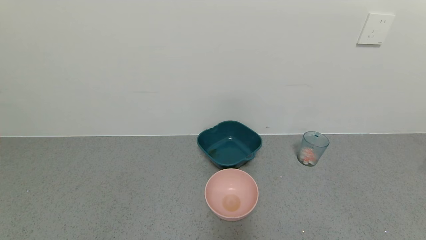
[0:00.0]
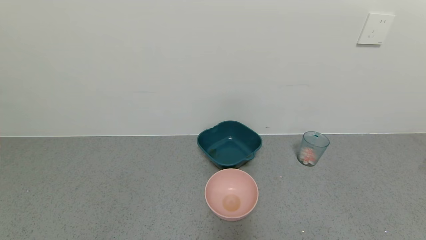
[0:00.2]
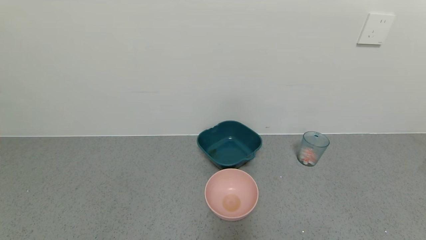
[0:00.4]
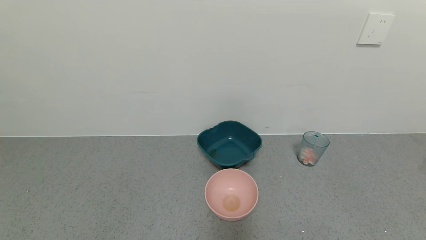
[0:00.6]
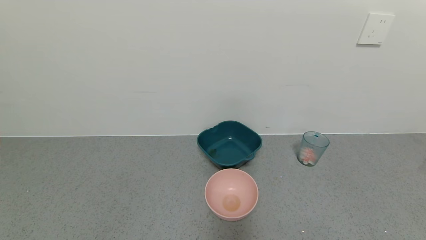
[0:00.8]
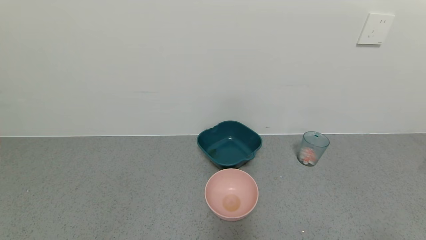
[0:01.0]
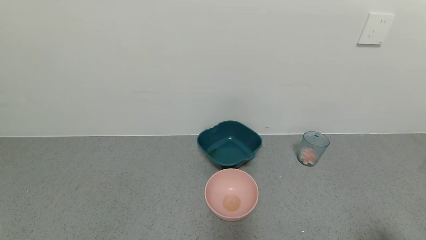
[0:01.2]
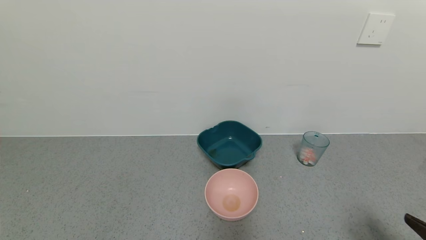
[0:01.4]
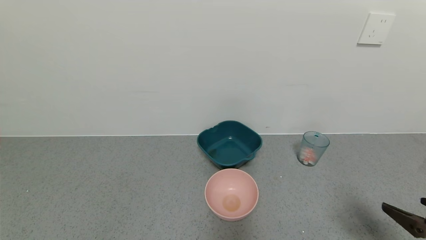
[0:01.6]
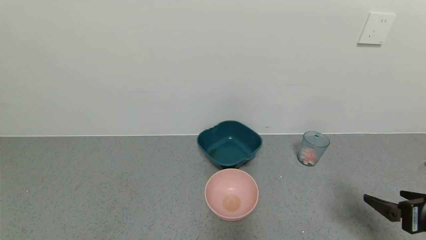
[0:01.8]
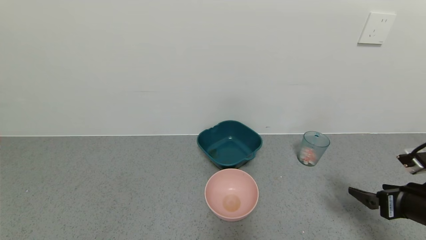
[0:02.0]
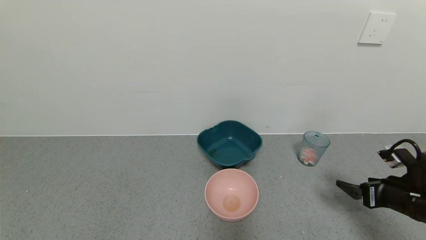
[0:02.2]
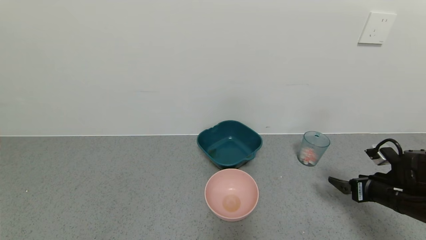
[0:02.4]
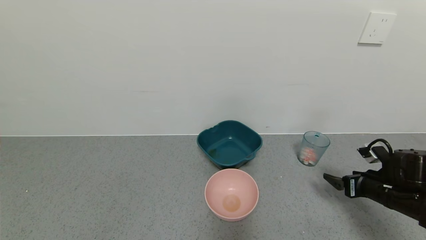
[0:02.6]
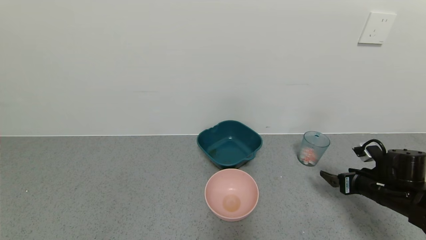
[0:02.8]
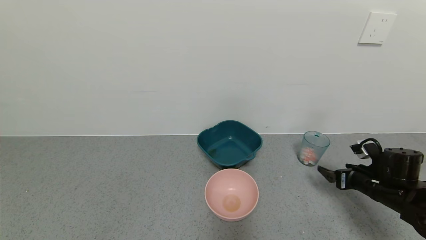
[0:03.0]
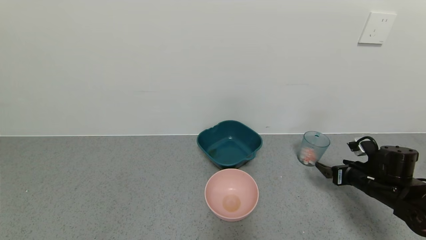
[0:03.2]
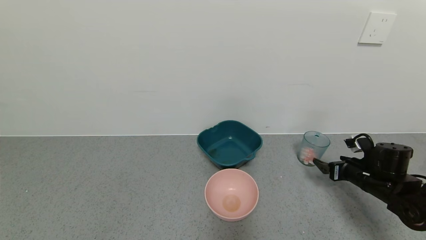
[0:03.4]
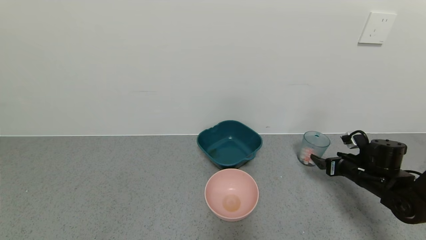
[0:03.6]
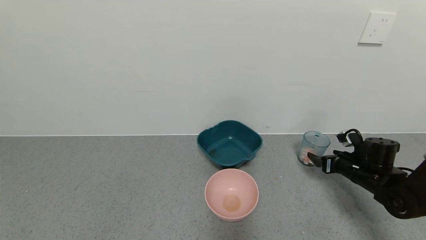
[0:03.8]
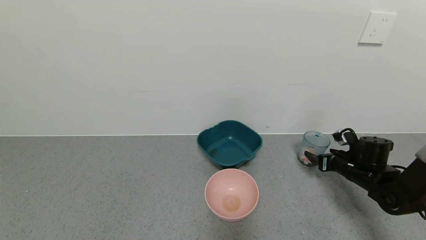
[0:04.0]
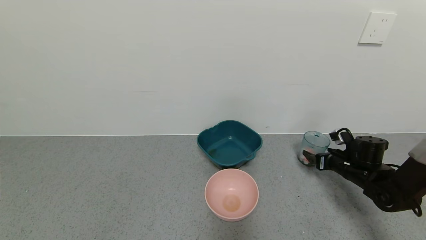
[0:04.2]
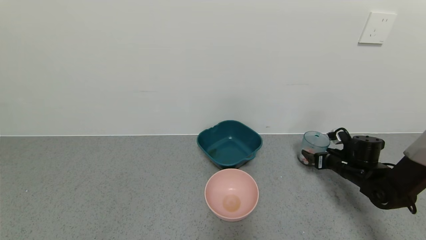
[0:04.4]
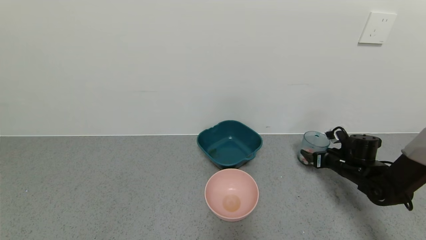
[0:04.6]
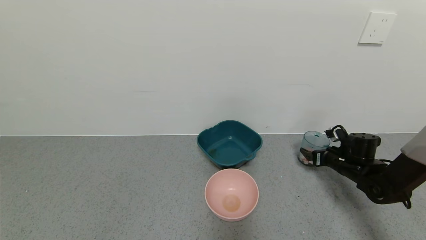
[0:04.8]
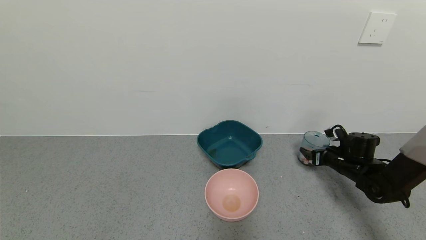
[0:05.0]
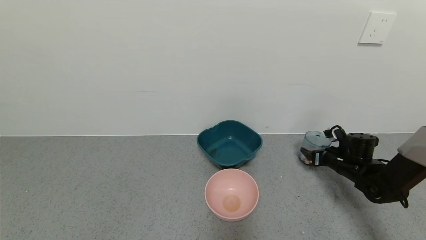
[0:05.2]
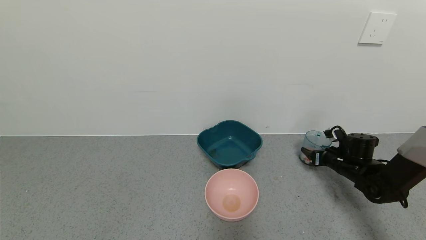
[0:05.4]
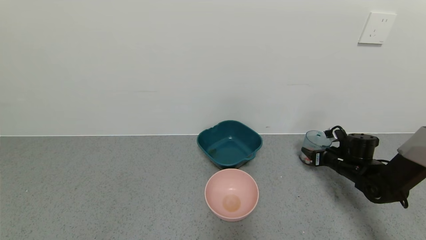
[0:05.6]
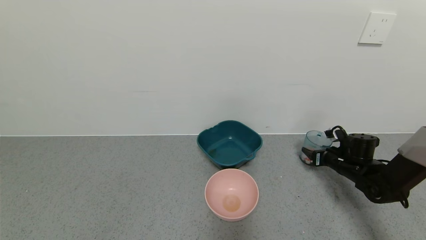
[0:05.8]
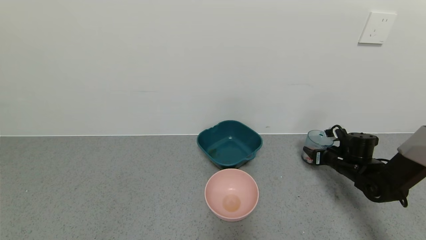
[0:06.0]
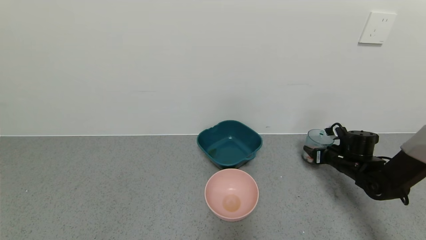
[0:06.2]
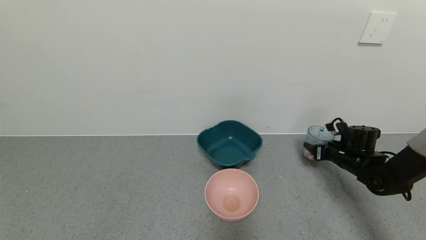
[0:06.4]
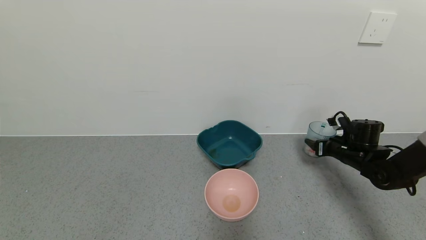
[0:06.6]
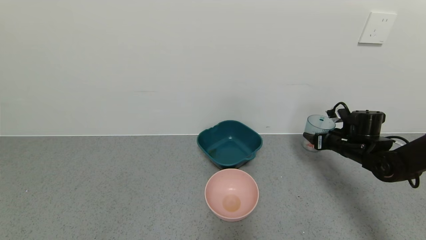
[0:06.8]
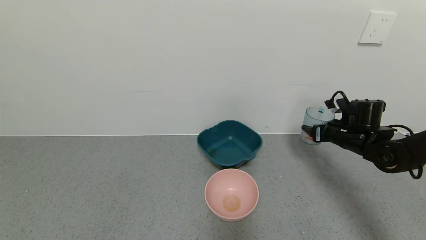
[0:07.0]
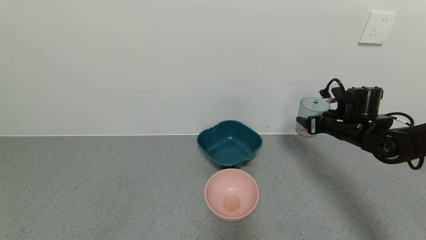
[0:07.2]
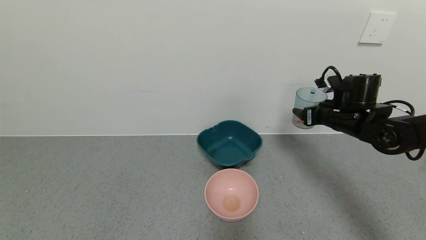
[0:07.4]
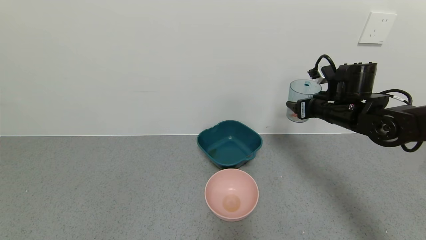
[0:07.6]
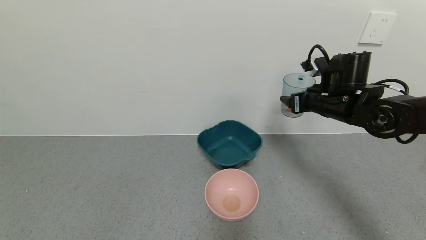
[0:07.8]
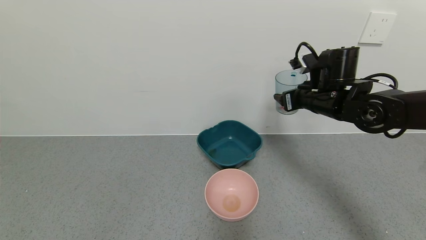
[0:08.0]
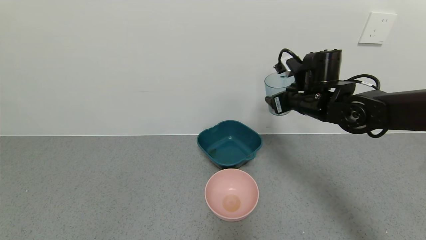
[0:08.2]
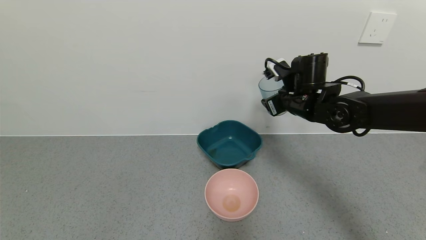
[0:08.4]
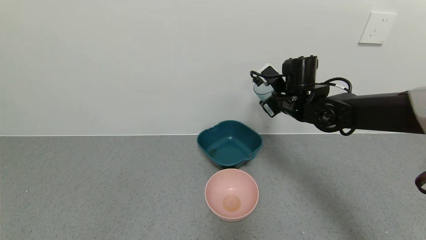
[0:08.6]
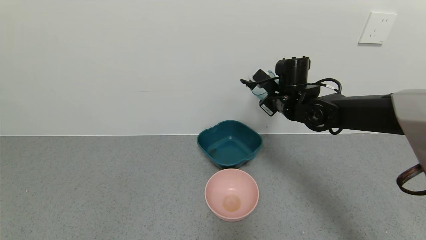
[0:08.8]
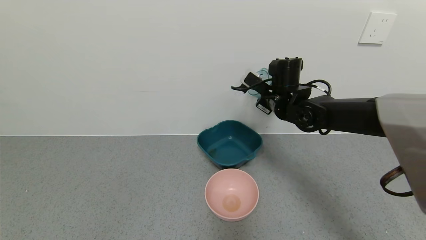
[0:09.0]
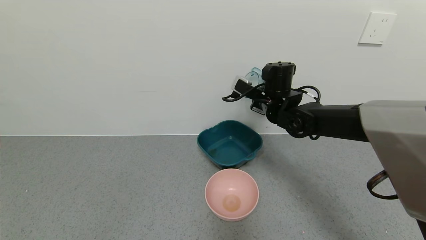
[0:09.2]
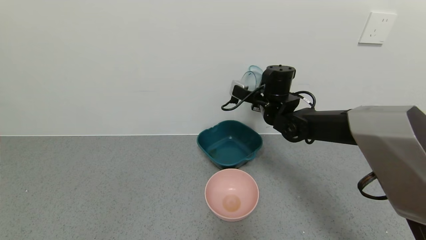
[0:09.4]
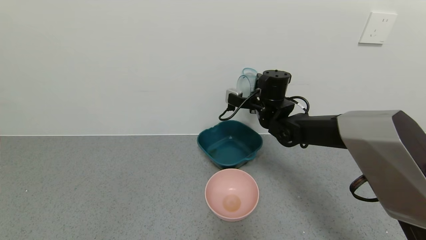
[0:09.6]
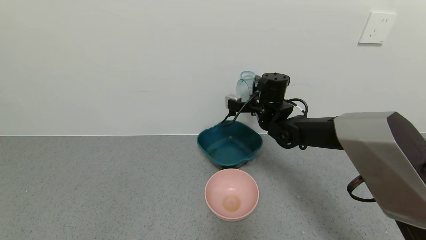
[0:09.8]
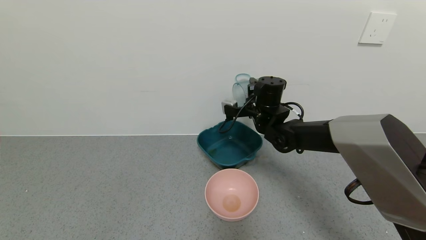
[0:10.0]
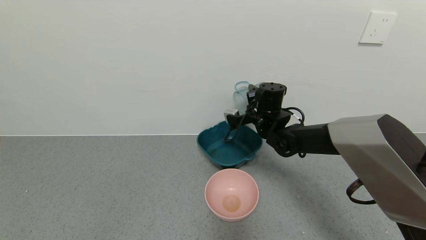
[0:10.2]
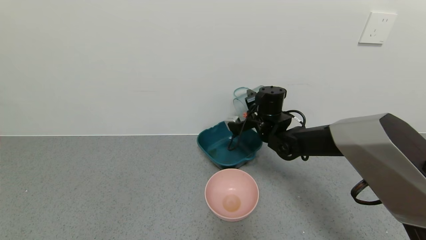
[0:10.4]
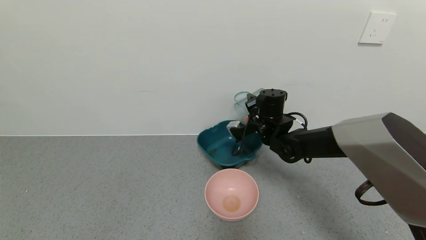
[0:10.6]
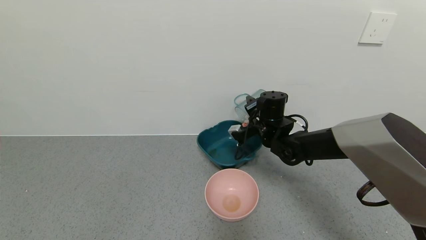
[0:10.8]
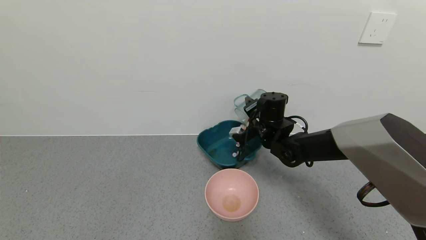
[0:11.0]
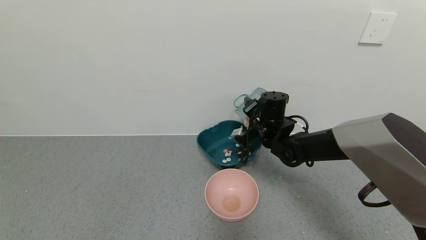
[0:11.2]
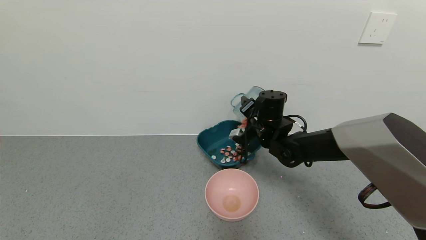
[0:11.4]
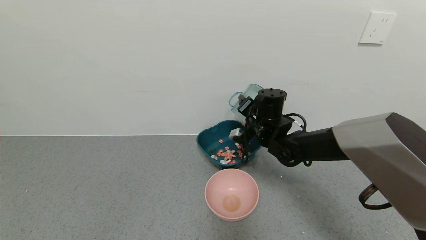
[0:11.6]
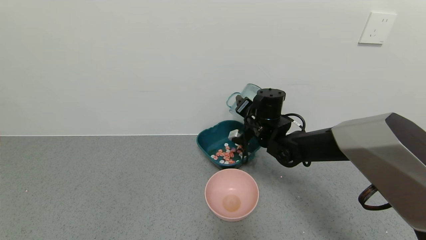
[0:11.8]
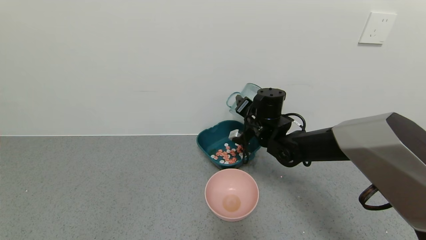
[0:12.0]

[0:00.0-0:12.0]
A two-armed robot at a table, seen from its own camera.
Task of the whole recording: use a gripper to pick up the cup and pour the solid into a bowl or tray.
Step, 0:00.0 to 0:06.0: Grasp the glass of shrimp with the right gripper.
0:00.0 to 0:01.6: The right gripper goes approximately 15 cm forward and upward.
0:01.6 to 0:03.0: The right gripper shifts about 20 cm forward and downward.
0:03.0 to 0:04.4: The right gripper travels forward by roughly 10 cm.
0:04.4 to 0:06.0: The right gripper closes its fingers.
0:06.0 to 0:07.6: The right gripper goes about 20 cm upward and to the left.
0:07.6 to 0:09.0: The right gripper is displaced to the left and forward by some 15 cm.
0:09.0 to 0:10.4: The right gripper goes some 5 cm downward.

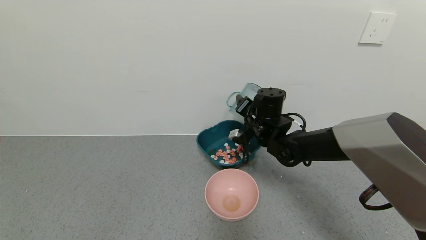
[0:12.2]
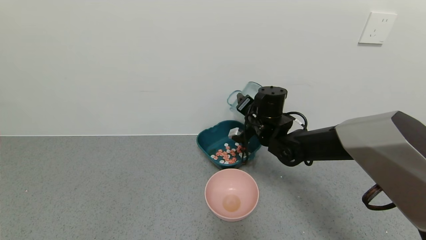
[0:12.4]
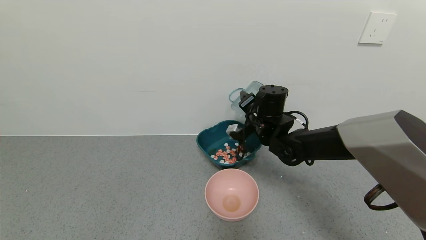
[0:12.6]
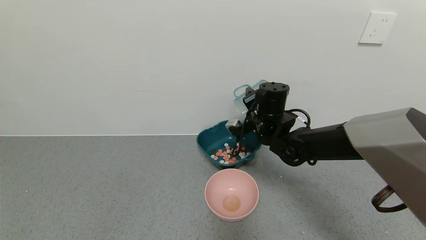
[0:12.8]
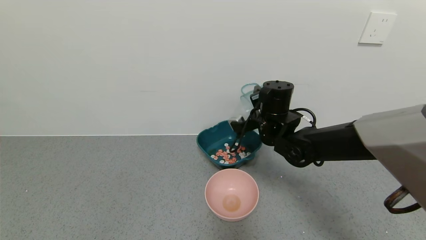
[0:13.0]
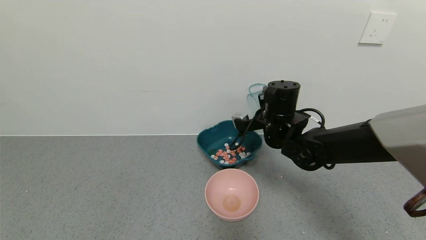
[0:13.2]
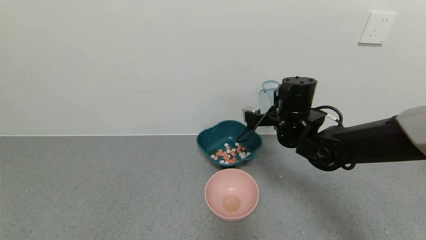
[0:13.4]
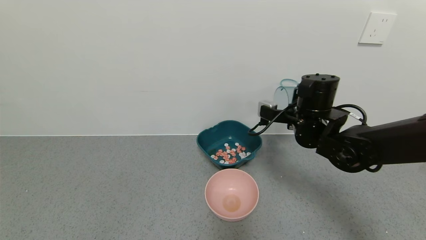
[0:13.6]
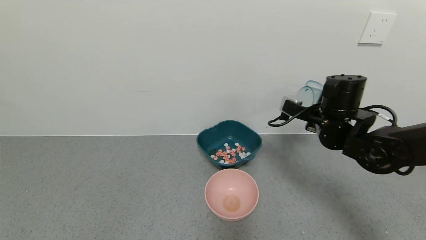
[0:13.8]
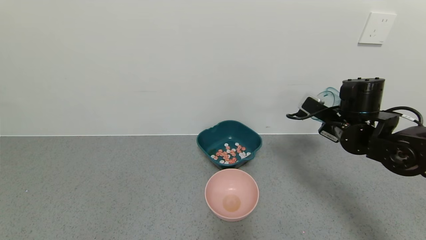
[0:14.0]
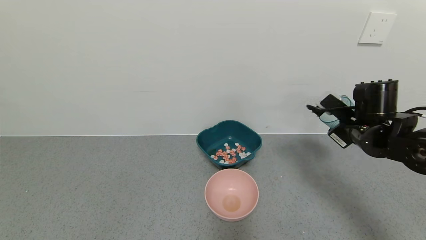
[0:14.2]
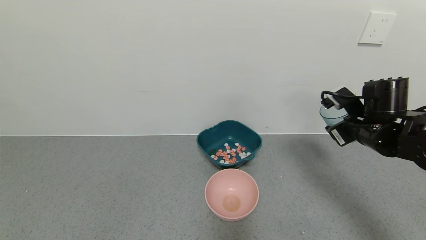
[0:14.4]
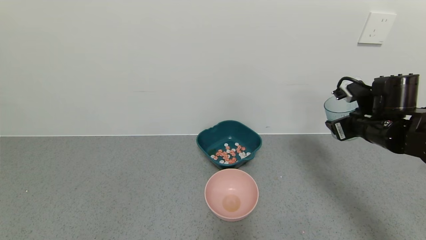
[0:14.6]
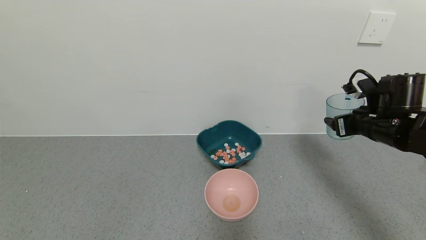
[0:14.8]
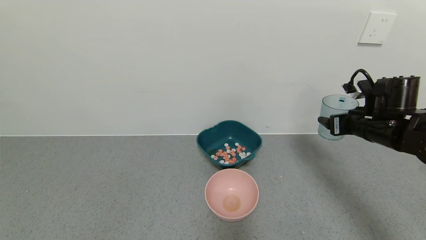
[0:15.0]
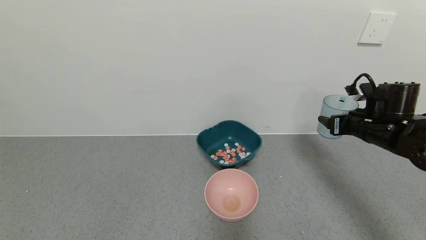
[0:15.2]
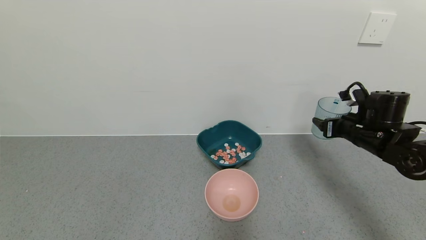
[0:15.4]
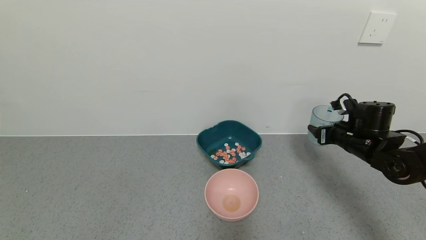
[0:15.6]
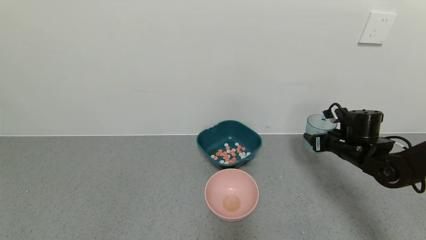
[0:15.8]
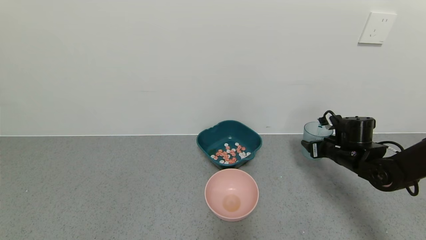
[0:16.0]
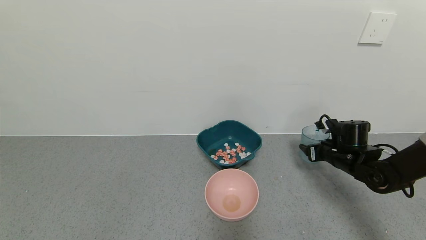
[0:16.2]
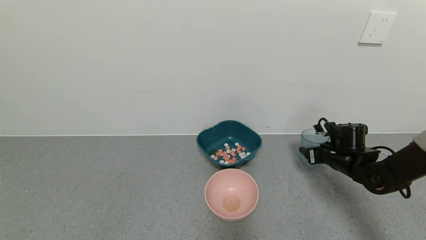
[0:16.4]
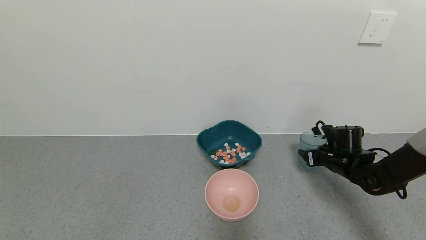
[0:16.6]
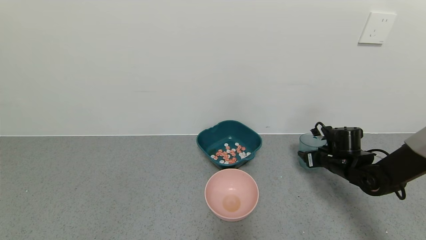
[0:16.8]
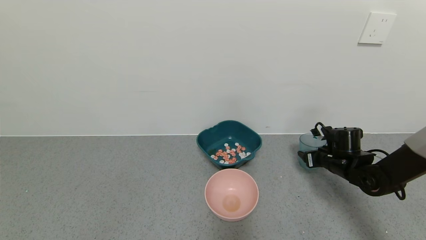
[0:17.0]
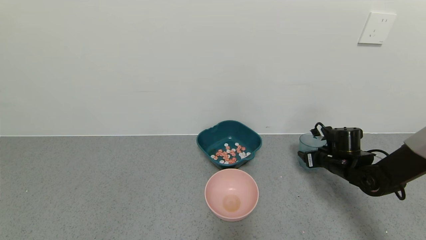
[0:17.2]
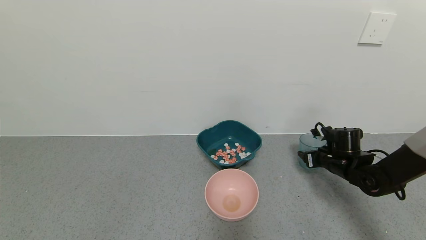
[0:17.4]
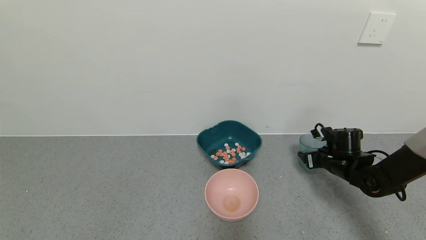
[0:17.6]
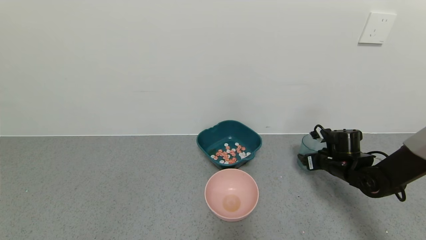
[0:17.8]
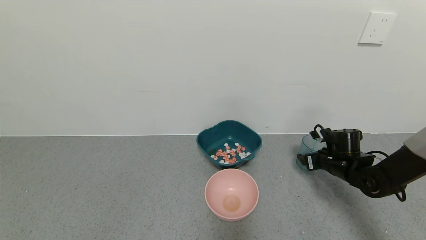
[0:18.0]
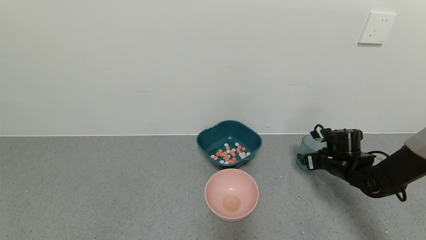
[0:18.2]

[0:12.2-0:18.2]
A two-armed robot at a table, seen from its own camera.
Task of the whole recording: use a gripper to pick up the cup and pour the solid into a bowl or tray.
Step, 0:13.6 to 0:18.0: Place the glass cup with the right gripper.
0:12.2 to 0:13.8: The right gripper moves to the right and backward, roughly 15 cm.
0:13.8 to 0:15.2: The right gripper shifts about 10 cm to the right.
0:15.2 to 0:16.6: The right gripper goes some 10 cm downward.
0:16.6 to 0:18.2: The right gripper opens.
